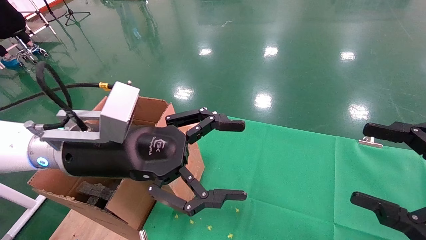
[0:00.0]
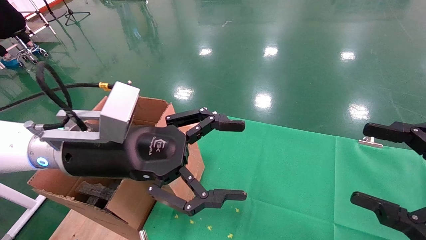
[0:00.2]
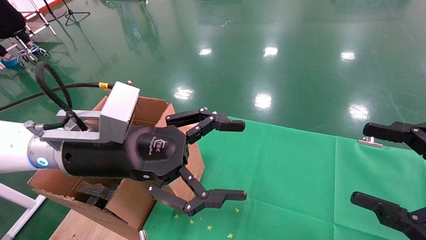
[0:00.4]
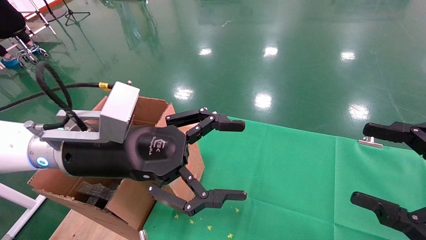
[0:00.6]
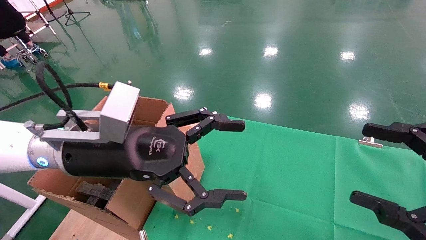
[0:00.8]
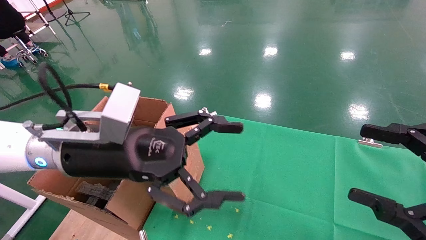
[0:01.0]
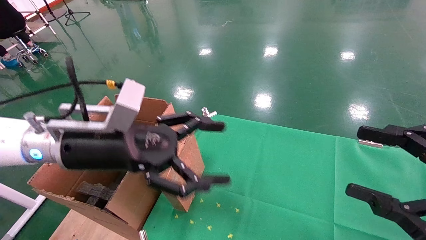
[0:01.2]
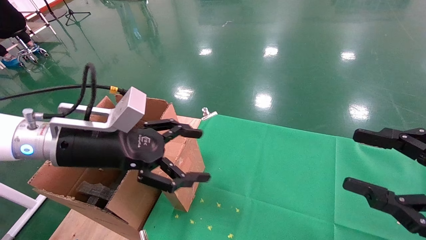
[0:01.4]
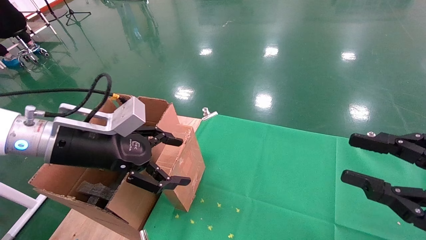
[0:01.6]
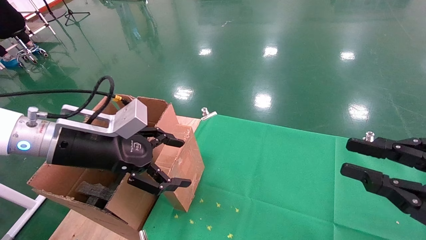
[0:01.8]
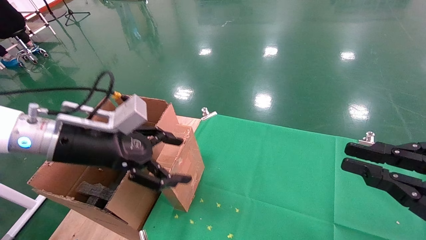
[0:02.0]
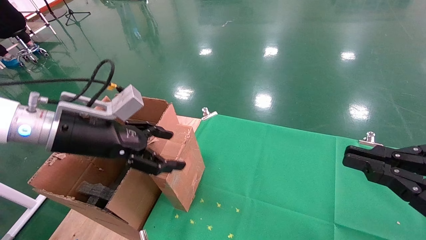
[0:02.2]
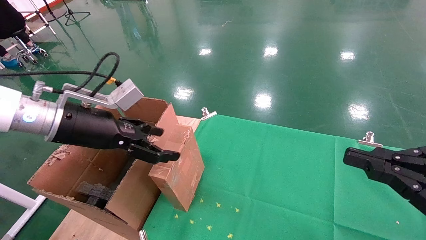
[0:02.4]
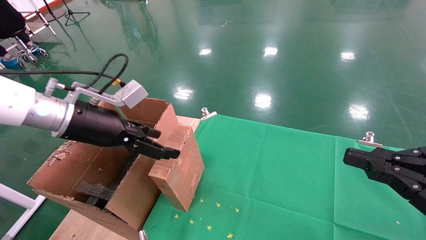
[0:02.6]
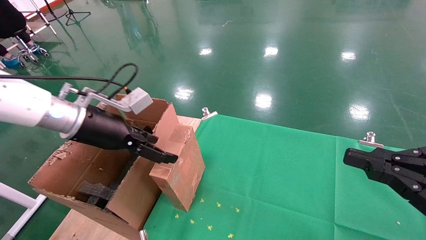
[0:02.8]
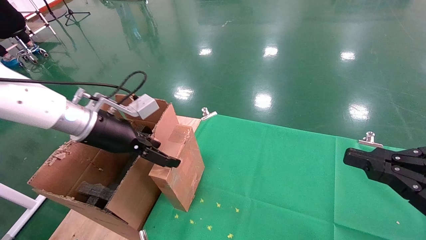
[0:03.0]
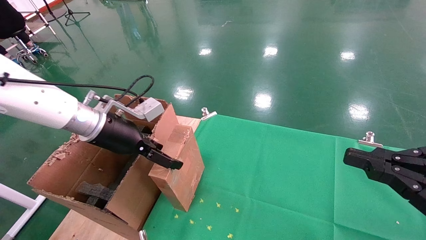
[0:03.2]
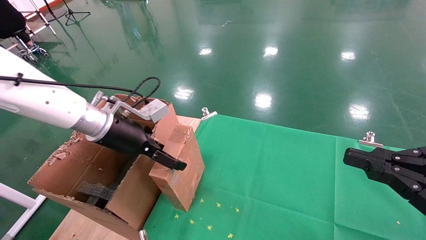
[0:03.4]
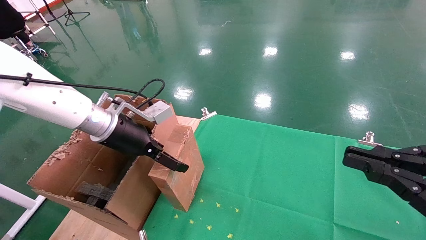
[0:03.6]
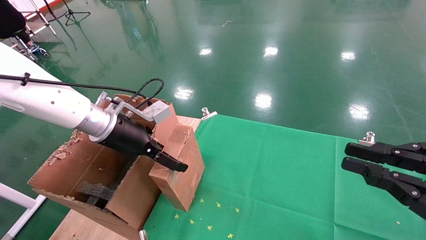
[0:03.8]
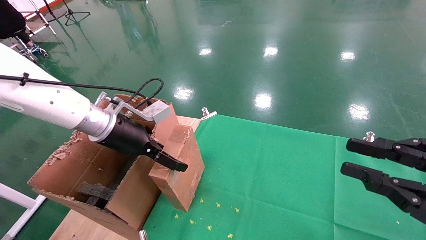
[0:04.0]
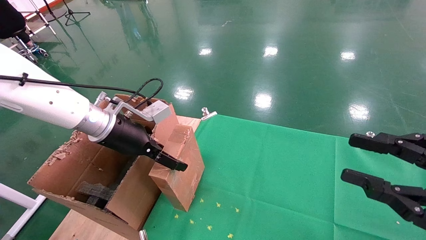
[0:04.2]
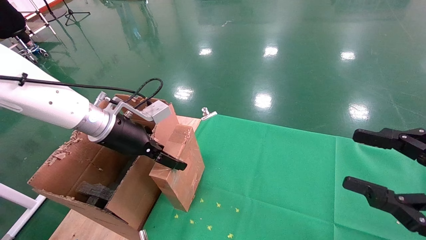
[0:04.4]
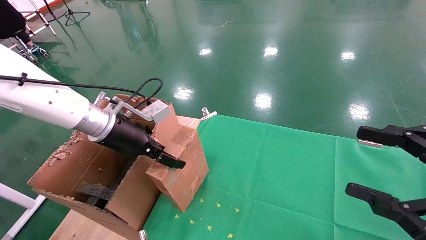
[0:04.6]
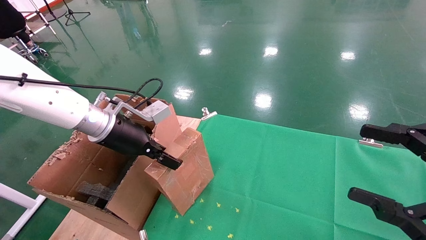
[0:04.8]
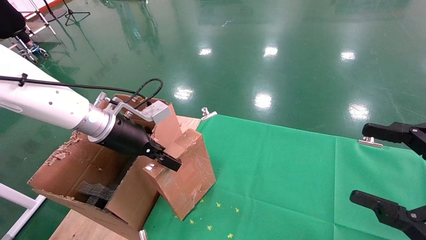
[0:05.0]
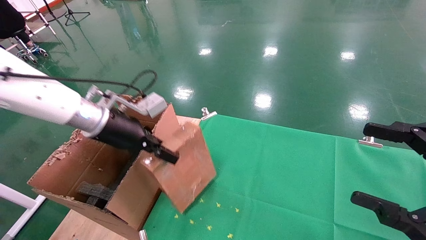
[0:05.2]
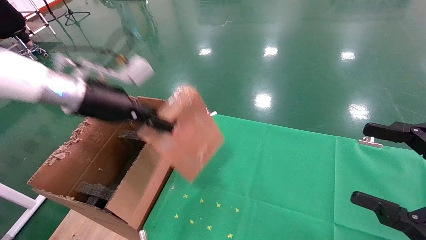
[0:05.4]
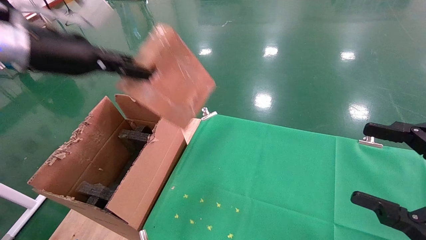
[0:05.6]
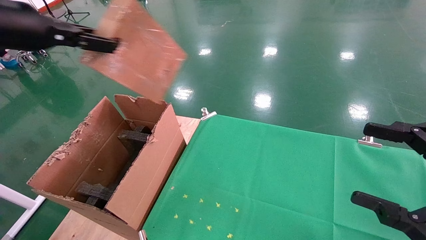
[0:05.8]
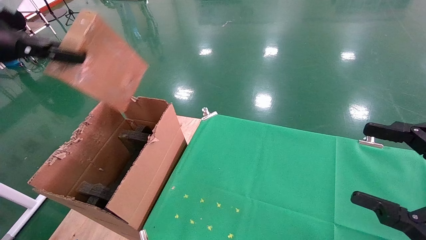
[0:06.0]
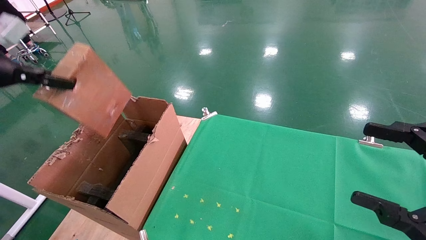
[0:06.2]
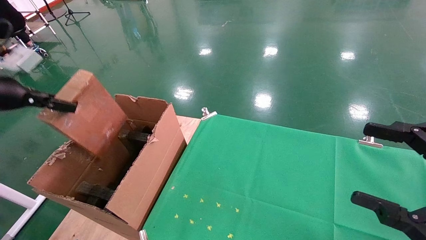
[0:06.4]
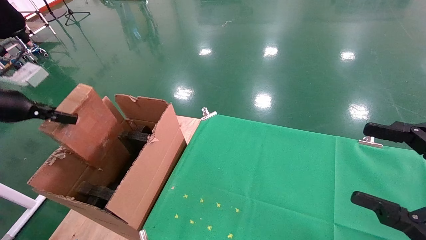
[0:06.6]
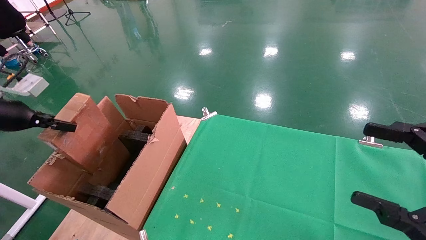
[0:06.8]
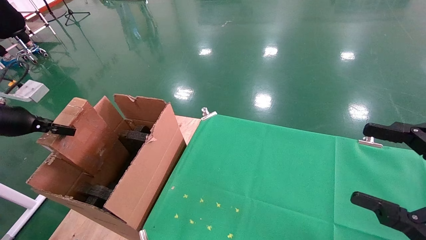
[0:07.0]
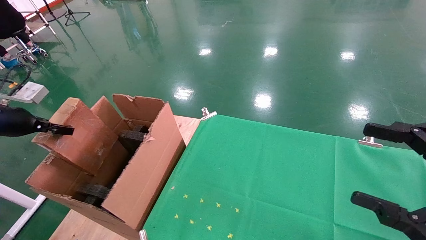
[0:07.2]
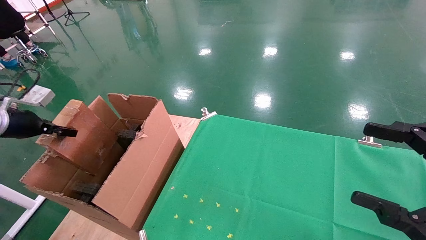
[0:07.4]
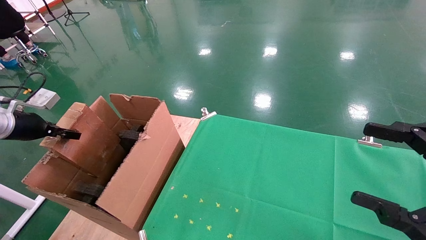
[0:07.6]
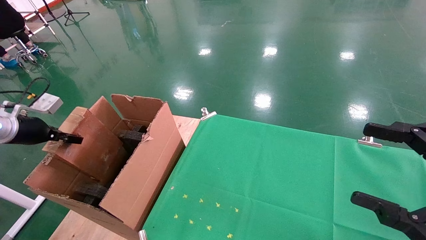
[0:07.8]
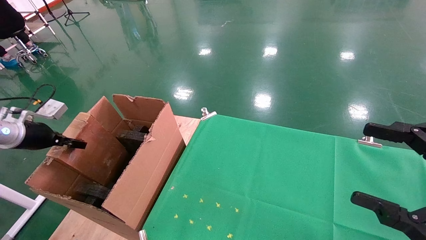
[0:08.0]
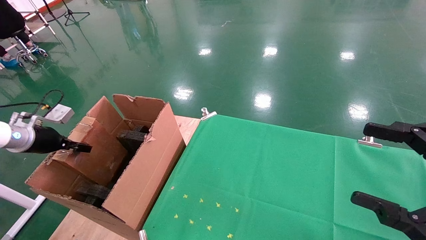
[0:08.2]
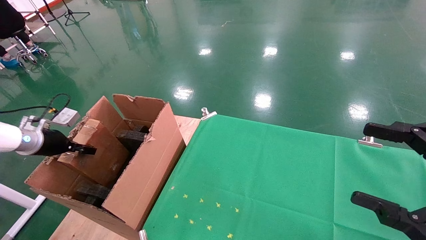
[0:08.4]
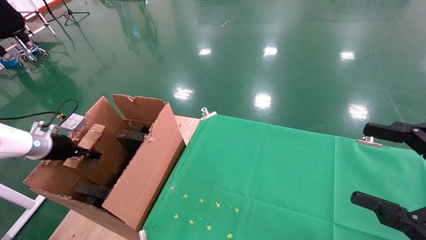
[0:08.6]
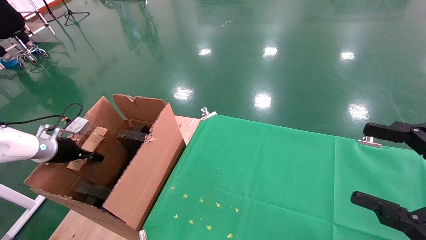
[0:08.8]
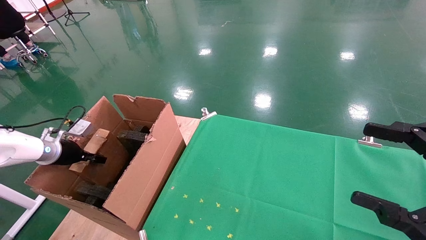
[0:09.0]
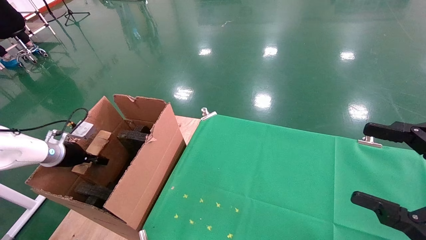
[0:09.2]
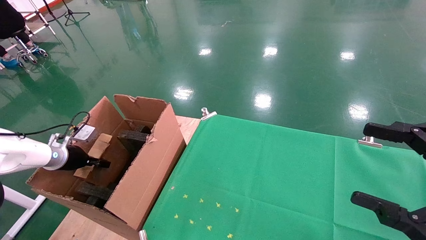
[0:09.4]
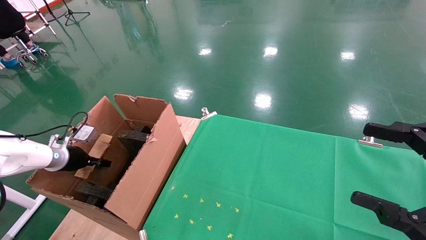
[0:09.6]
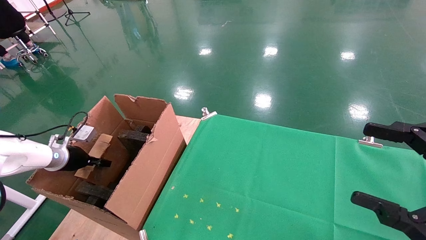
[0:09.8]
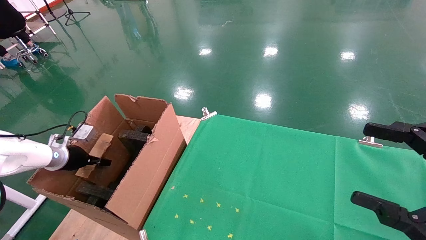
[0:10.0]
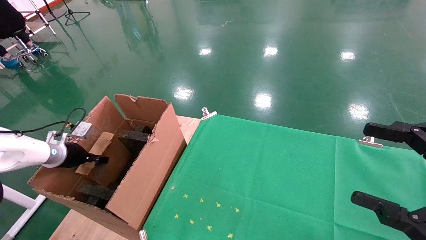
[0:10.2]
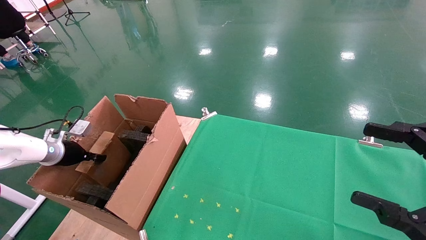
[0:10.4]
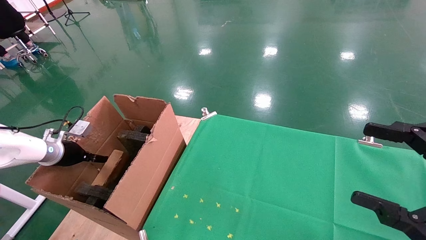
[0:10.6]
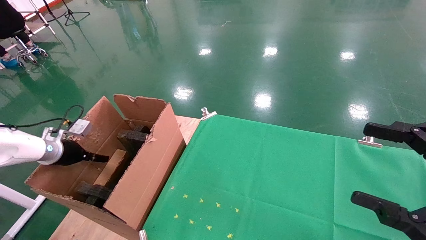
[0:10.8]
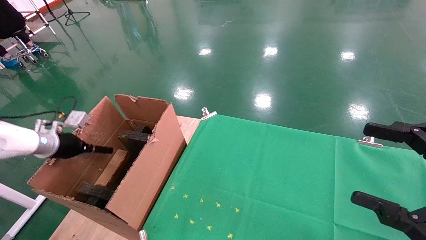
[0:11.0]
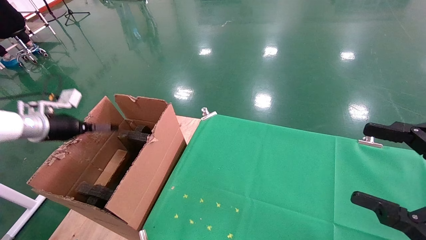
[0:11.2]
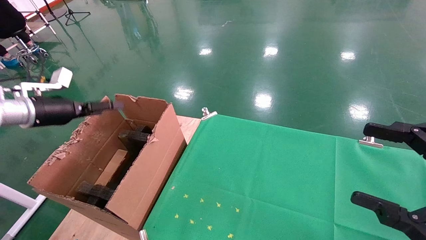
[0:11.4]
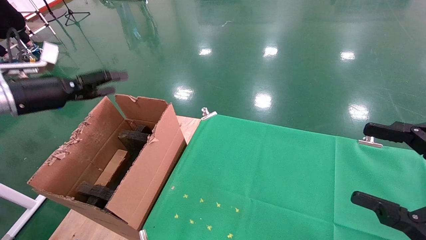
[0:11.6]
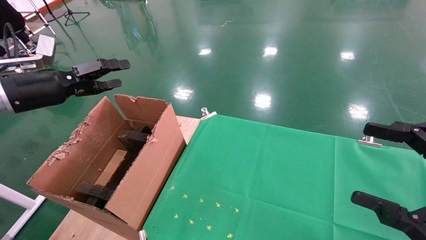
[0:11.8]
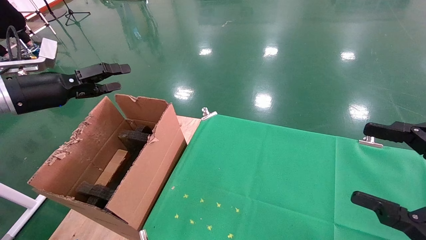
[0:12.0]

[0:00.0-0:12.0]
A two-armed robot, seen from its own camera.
Task of the whole recording: using a robotic arm to pick up a cardboard box and palace it the carton.
Step, 0:01.2 to 0:04.8: Pick up the mouse and the power cord paper box.
Step, 0:05.0 to 0:11.4: Place the mouse and the power cord paper box into the container.
0:00.0 to 0:01.6: The left gripper travels to the left by approximately 5 cm, while the right gripper closes.
0:01.6 to 0:03.0: The right gripper closes its fingers; the left gripper heads forward, covering approximately 5 cm.
0:03.0 to 0:04.4: The right gripper opens.
0:04.4 to 0:06.0: The left gripper shifts approximately 25 cm to the left, upward and backward, and closes its fingers. Meanwhile the right gripper opens up.
0:06.0 to 0:07.6: The left gripper shifts about 20 cm downward and to the left.
0:07.6 to 0:09.0: The left gripper shifts about 10 cm downward and forward.
0:09.0 to 0:10.4: The grippers stay close to where they were, moving slightly.
0:10.4 to 0:12.0: The left gripper is displaced upward and backward by roughly 20 cm, and opens.

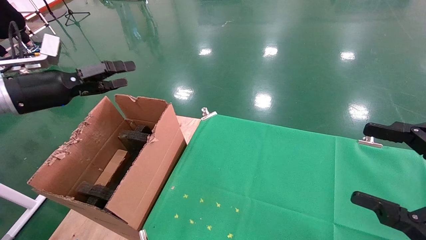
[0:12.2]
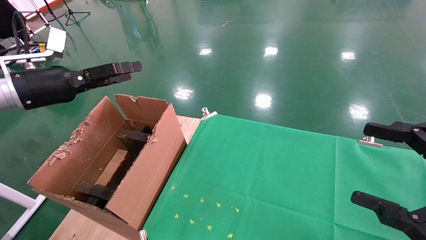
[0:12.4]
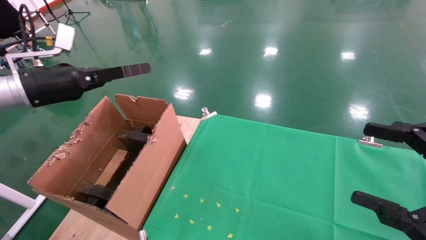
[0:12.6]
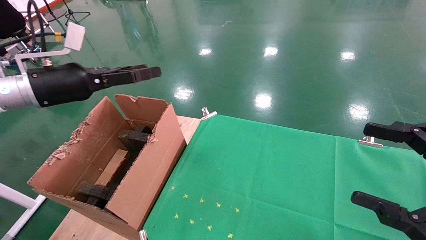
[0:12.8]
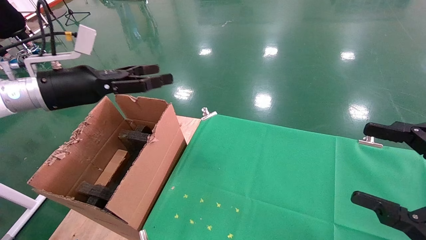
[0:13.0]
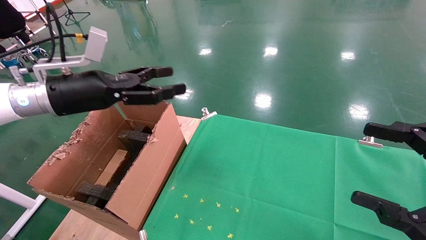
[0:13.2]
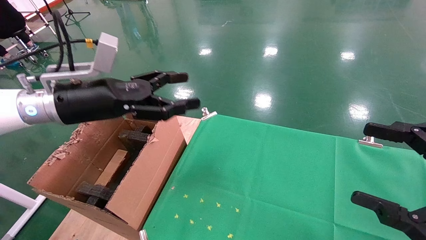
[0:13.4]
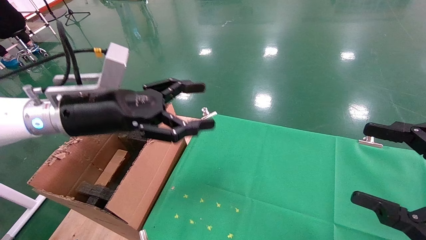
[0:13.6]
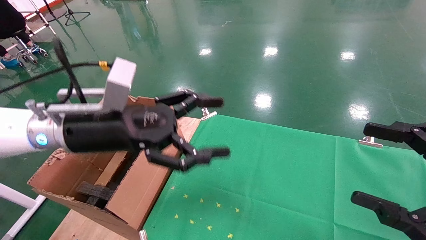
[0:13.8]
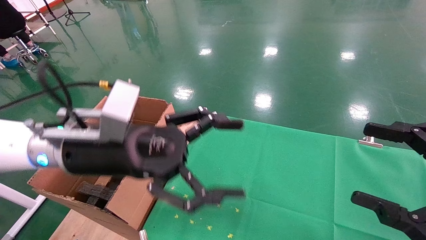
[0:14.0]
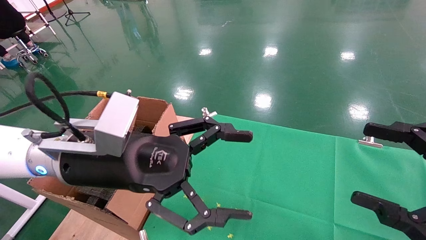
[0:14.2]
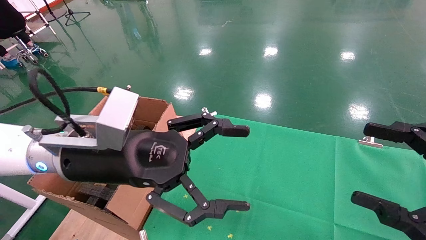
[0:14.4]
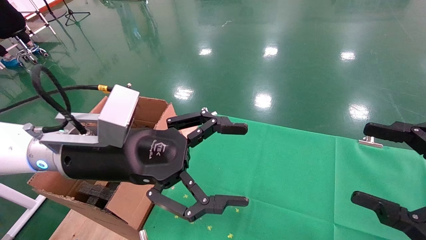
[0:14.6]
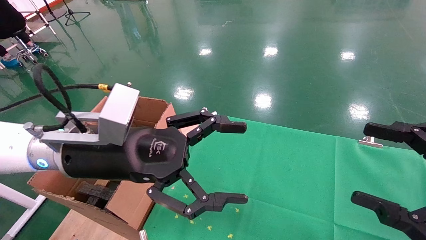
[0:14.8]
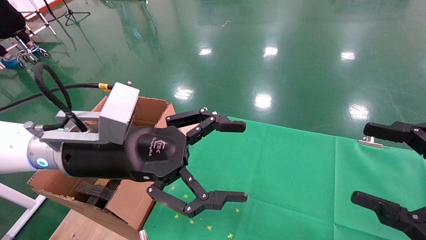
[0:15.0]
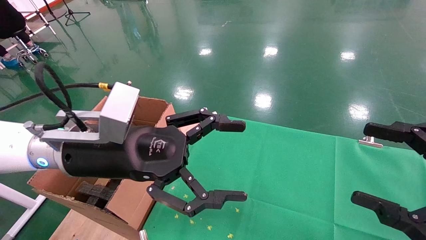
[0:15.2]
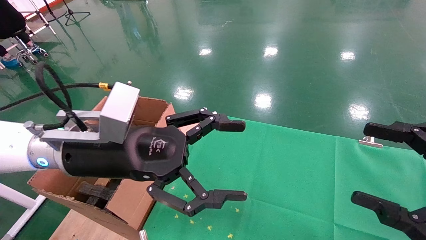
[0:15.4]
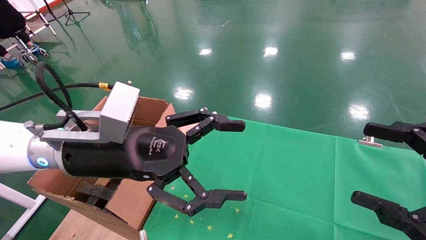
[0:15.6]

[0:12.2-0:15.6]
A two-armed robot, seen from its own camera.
Task of the whole recording: using a robotic arm to pick up a cardboard box and palace it the carton.
0:12.2 to 0:13.8: The left gripper goes roughly 20 cm to the right.
0:13.8 to 0:15.6: The grippers stay close to where they were, moving slightly.

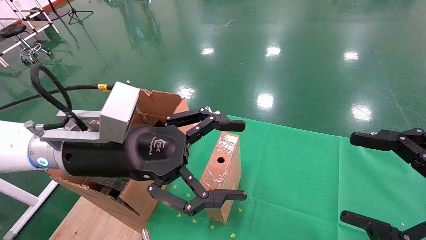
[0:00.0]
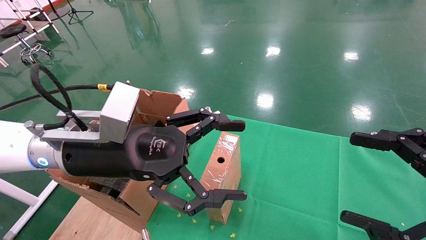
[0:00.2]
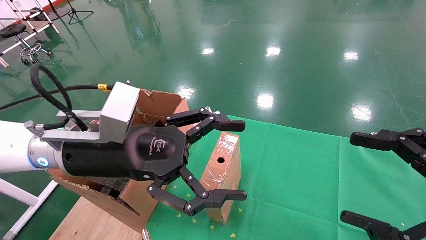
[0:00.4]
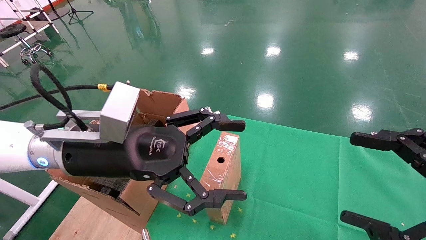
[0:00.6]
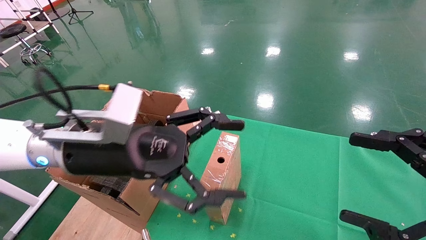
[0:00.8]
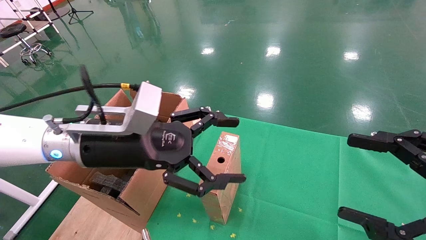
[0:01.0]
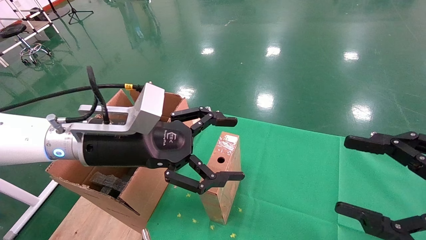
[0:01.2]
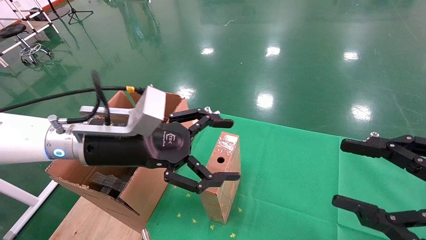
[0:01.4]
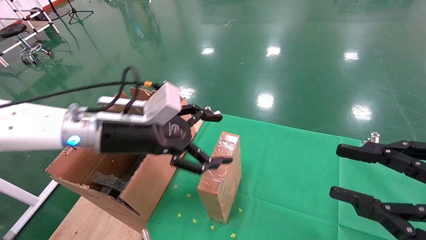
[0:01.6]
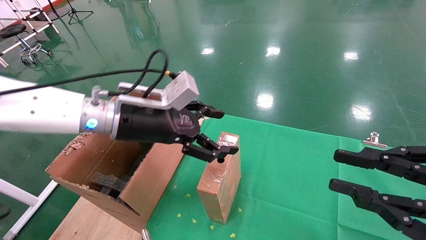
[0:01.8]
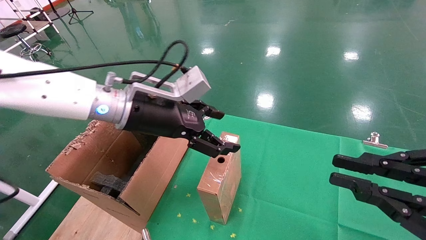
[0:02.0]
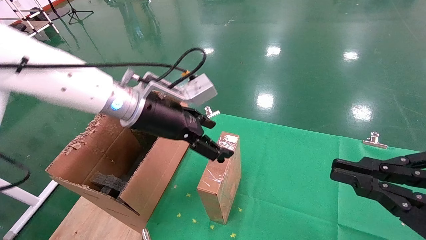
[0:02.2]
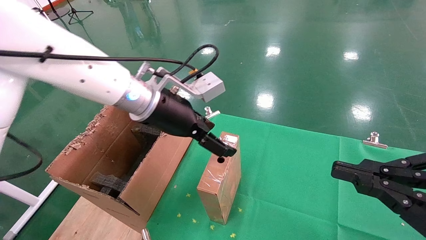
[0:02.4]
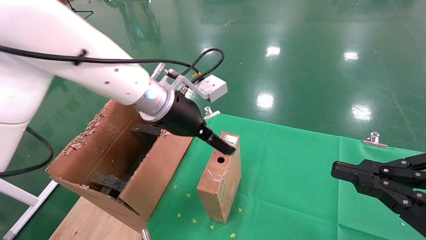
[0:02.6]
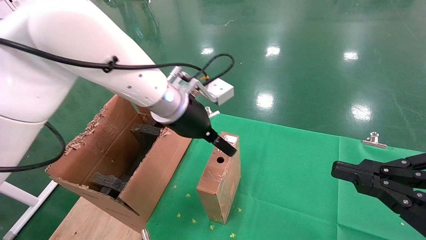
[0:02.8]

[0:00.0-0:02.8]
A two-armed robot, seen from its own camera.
Task of the whole recording: using a robotic arm to pick up a cardboard box and palace it the carton.
0:00.0 to 0:01.4: The grippers move only a little.
0:01.4 to 0:02.8: The right gripper closes its fingers. Meanwhile the left gripper goes some 10 cm to the right and forward.
